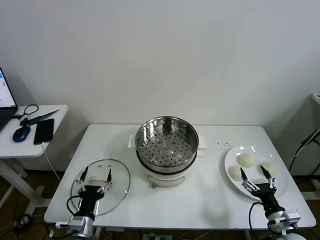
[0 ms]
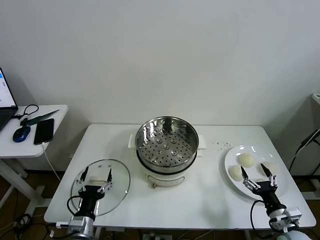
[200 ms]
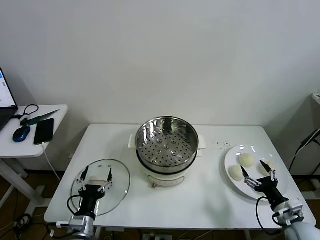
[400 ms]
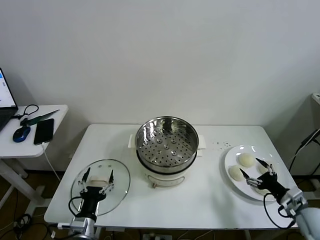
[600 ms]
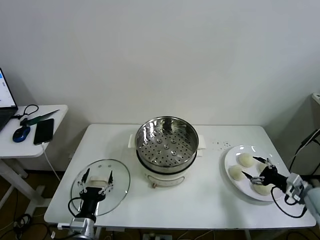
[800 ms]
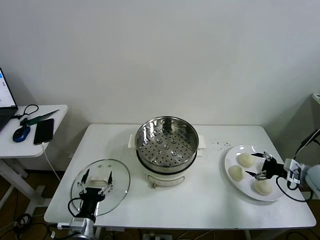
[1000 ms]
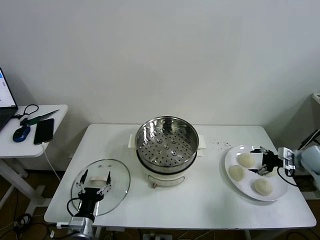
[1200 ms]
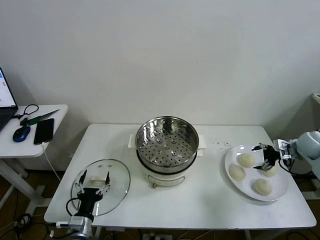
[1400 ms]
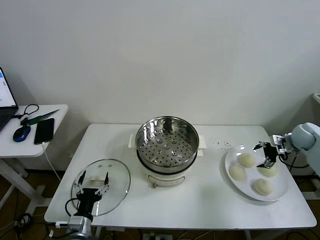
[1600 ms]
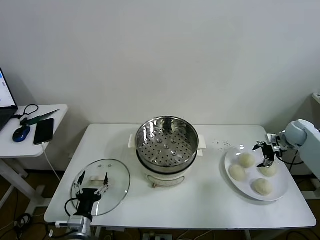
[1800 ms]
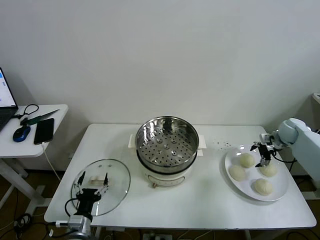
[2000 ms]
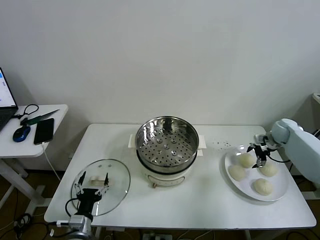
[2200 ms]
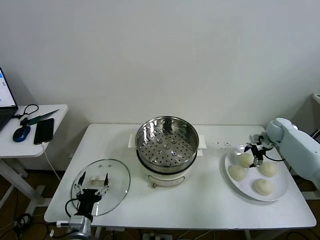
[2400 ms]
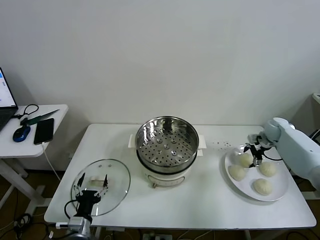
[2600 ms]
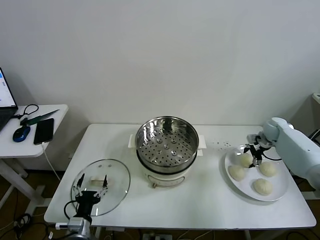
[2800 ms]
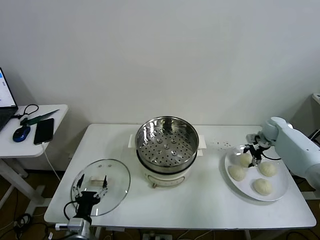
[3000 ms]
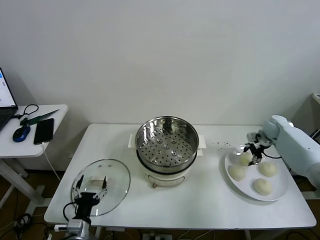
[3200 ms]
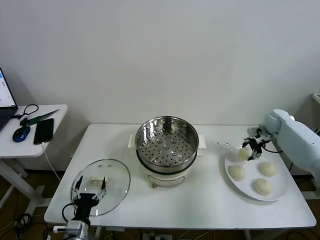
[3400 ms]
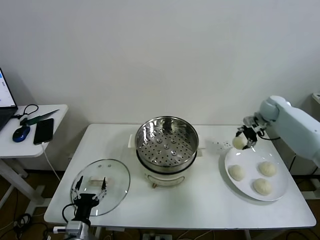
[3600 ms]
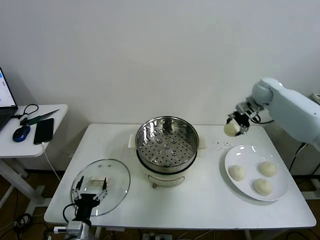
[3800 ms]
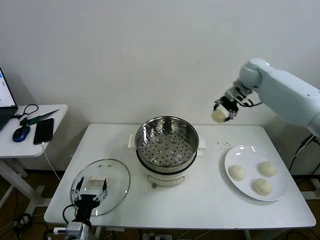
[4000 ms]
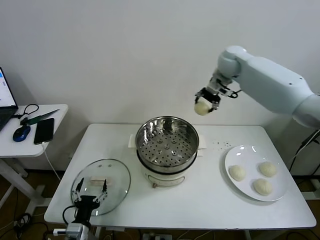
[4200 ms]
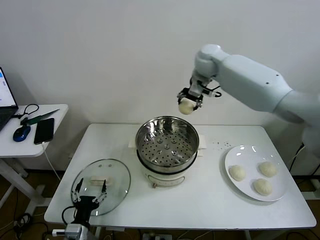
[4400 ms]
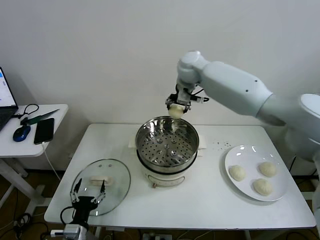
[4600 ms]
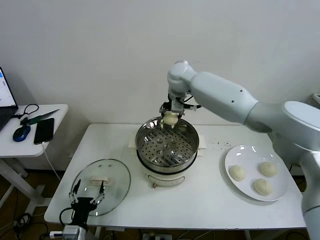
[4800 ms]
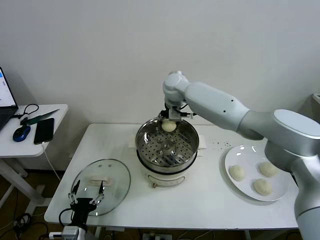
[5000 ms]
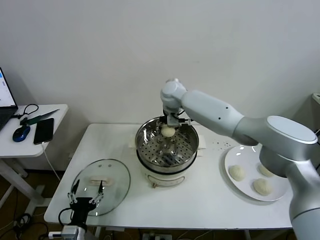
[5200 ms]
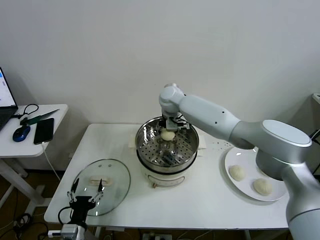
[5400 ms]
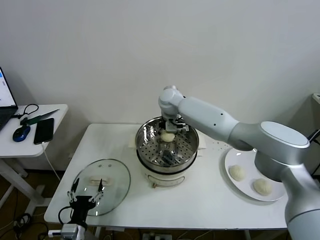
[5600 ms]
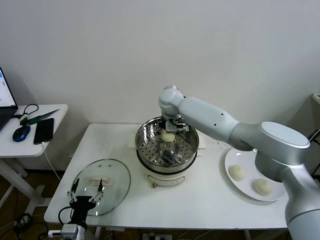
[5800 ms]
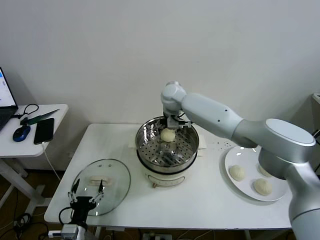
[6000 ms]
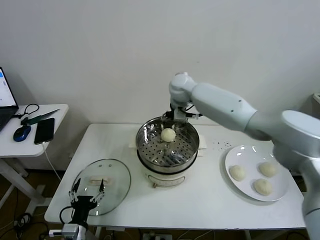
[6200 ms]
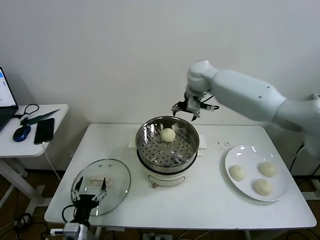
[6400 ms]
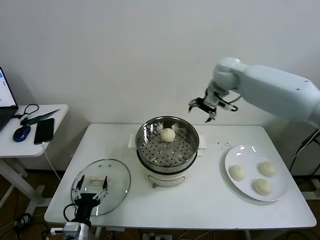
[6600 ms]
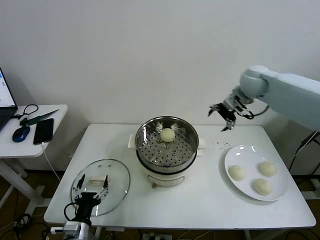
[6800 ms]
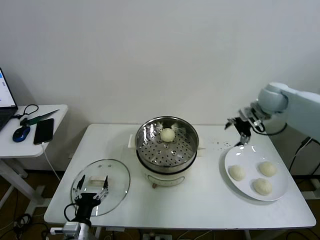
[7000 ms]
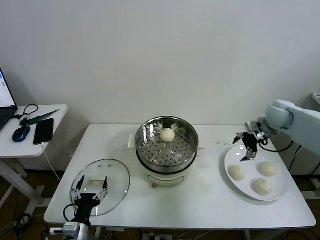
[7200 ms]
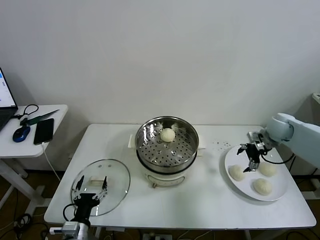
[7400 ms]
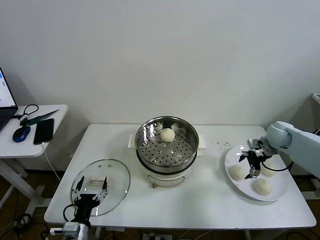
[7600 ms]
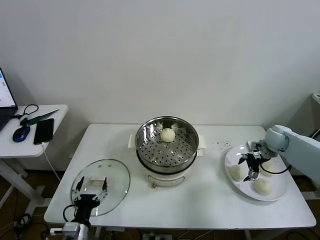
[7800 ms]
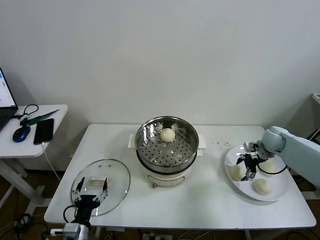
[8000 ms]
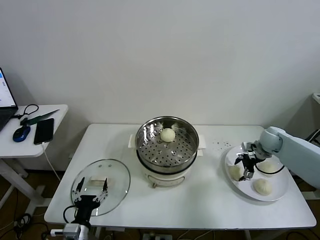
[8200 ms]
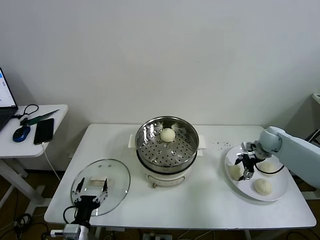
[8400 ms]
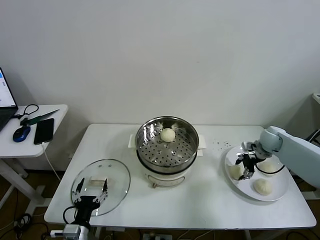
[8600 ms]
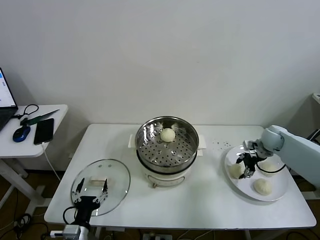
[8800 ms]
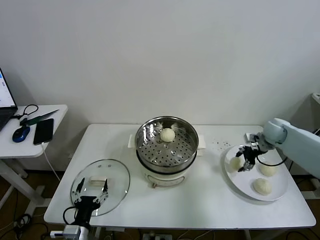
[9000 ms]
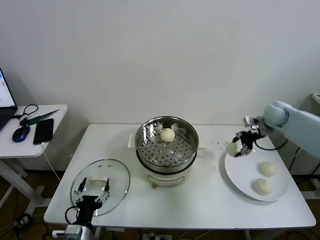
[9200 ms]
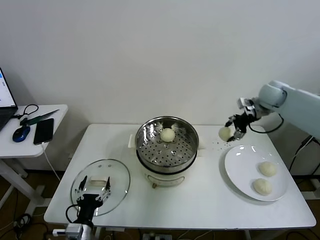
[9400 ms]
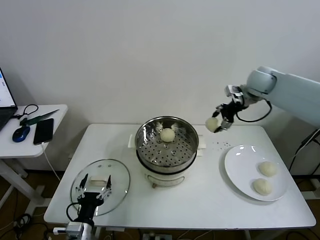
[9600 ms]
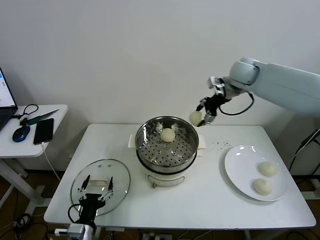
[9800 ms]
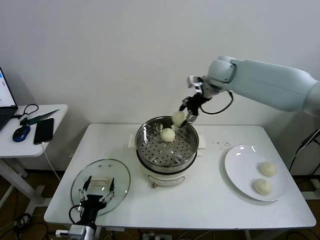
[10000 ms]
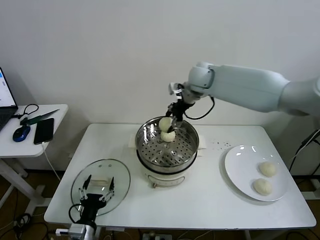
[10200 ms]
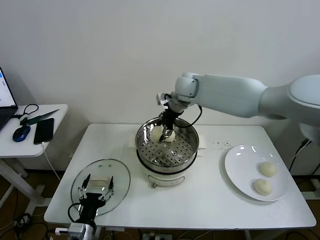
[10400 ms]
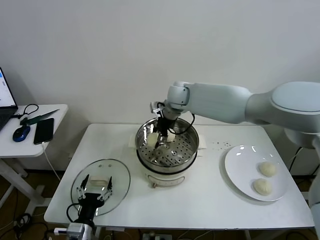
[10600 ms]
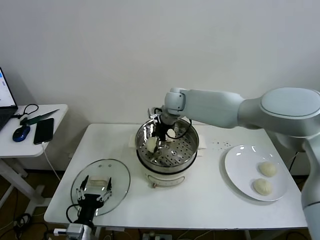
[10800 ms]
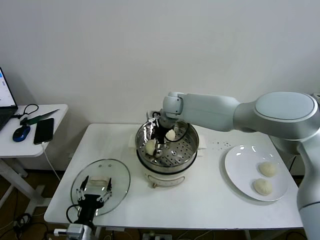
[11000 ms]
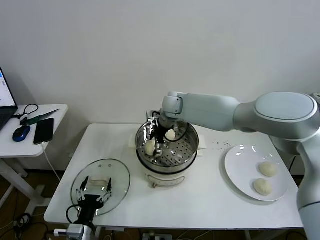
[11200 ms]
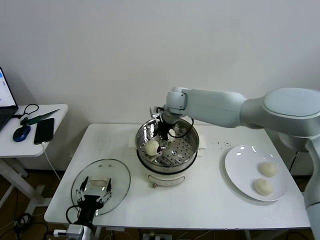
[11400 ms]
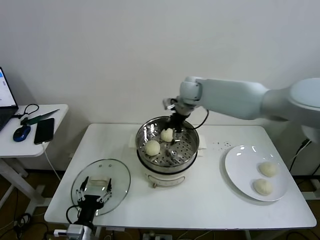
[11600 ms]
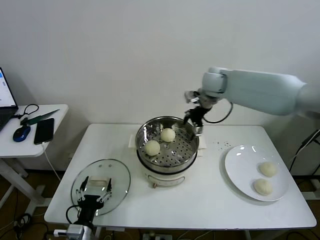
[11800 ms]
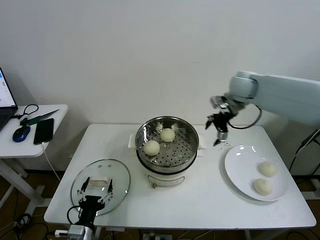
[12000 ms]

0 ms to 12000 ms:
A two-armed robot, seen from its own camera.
Task of the whole recording: take steamed baozi put them in steamer then cover it.
Step, 0 ms to 3000 ms: Grasp the baozi in the plate with right gripper.
Step, 3200 ms to 5800 ms: Place the baozi on the steamer with right gripper.
Step, 6000 ms to 8400 ms: Grasp the baozi in the plate with right gripper.
Step, 8800 ms to 11200 ms: Place the baozi on the steamer with right gripper.
1600 ms to 3000 ms: The right gripper travels forward and to the left by some 10 cm, and closes.
3000 ms to 4400 ms: The right gripper heads to the left and upward, covering approximately 40 cm.
4400 ms to 6000 ms: The right gripper goes some 10 cm downward and to the left, and opens.
6000 ms to 7600 ms: The right gripper heads to the right, covering about 40 cm.
7600 ms to 9000 ms: The right gripper closes its fingers.
9000 ms to 10400 ms: The right gripper moves to the left, approximately 35 cm.
10400 ms to 12000 ms: The right gripper travels to the right by approximately 20 cm, and opens up.

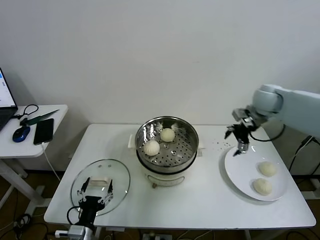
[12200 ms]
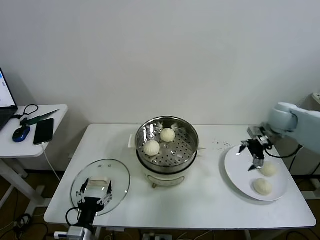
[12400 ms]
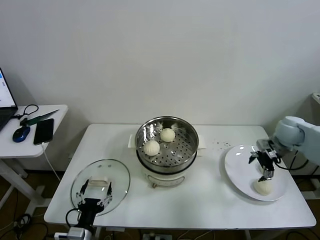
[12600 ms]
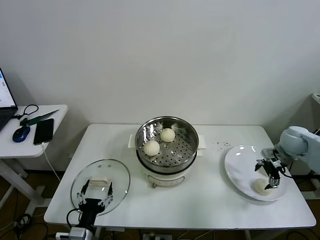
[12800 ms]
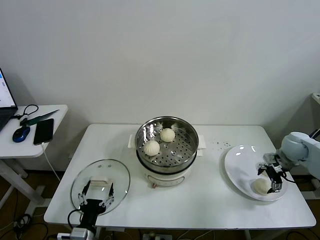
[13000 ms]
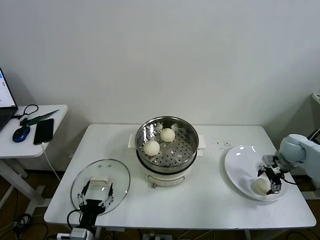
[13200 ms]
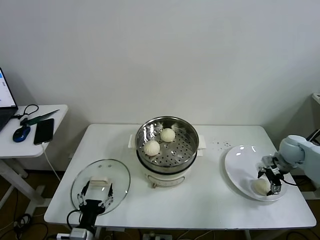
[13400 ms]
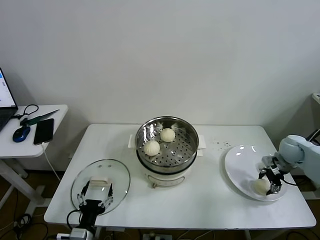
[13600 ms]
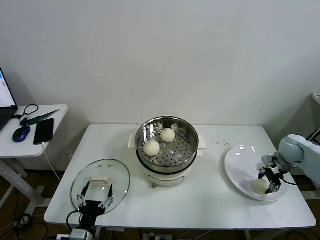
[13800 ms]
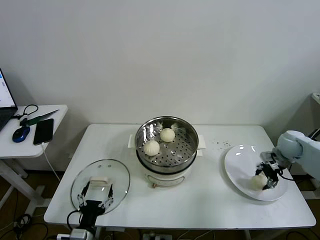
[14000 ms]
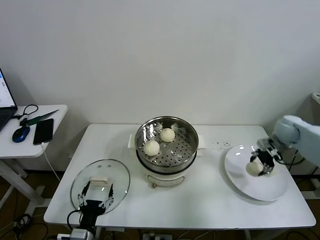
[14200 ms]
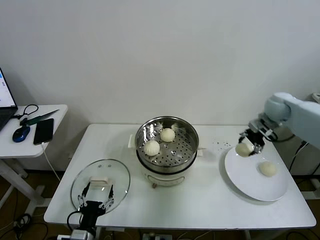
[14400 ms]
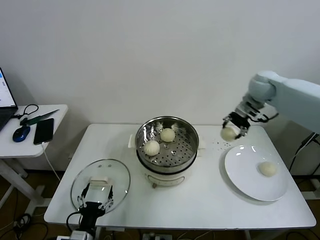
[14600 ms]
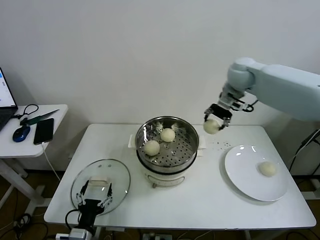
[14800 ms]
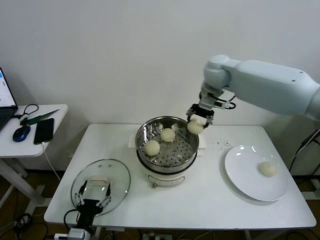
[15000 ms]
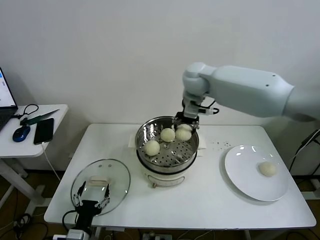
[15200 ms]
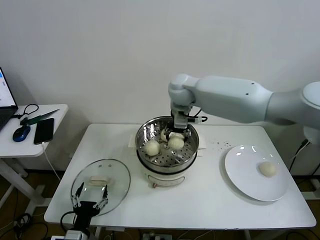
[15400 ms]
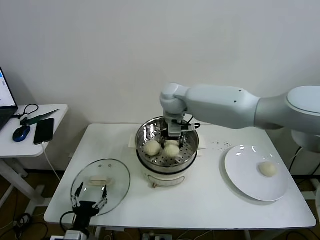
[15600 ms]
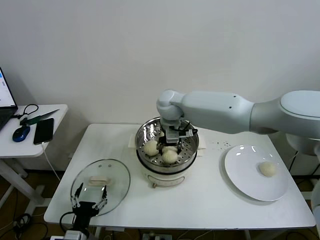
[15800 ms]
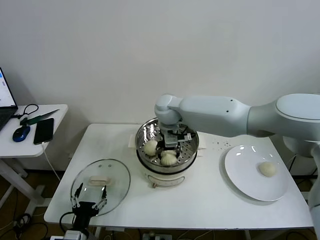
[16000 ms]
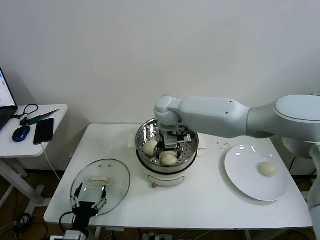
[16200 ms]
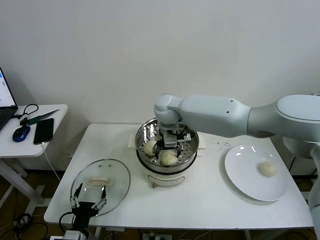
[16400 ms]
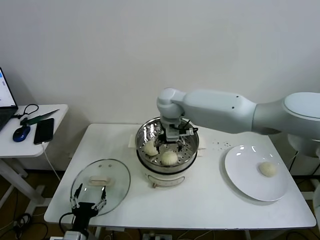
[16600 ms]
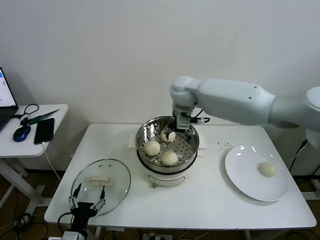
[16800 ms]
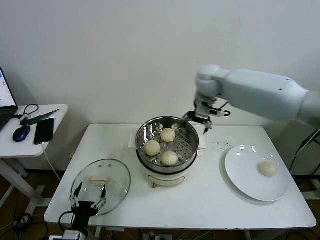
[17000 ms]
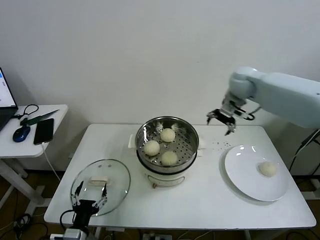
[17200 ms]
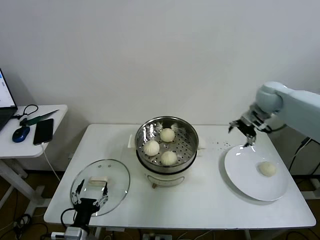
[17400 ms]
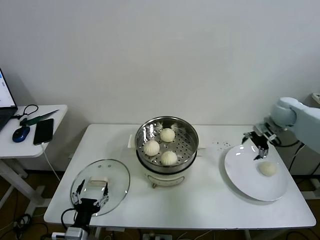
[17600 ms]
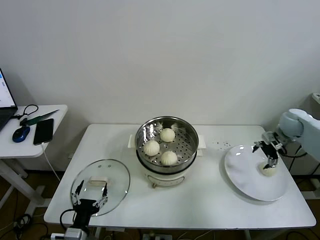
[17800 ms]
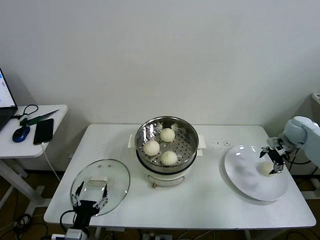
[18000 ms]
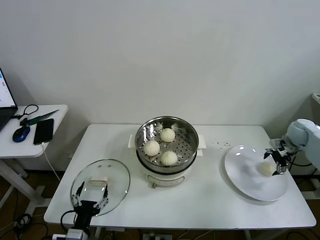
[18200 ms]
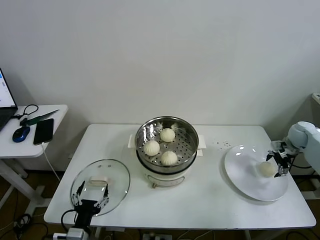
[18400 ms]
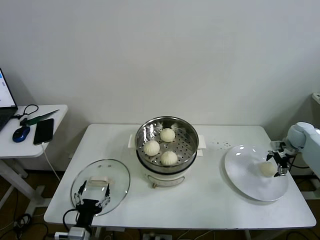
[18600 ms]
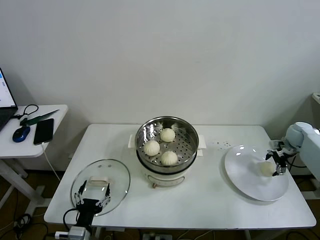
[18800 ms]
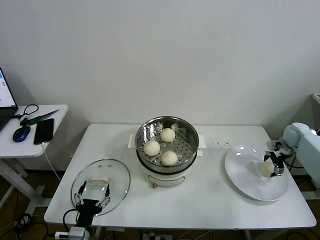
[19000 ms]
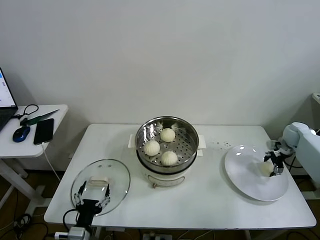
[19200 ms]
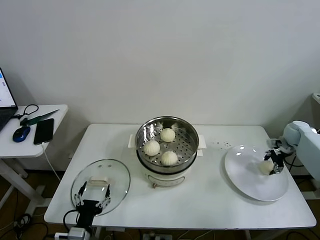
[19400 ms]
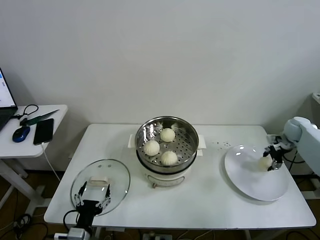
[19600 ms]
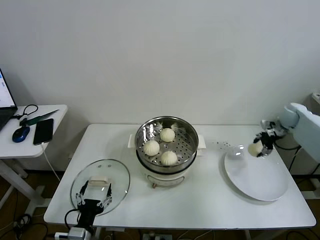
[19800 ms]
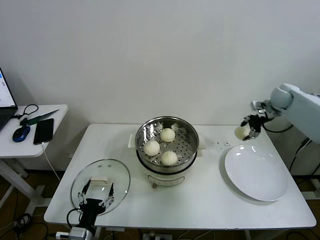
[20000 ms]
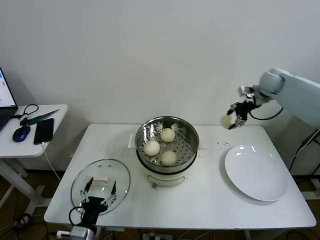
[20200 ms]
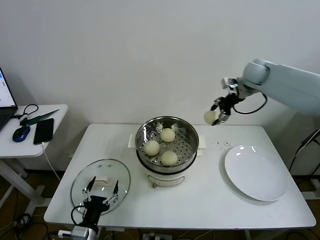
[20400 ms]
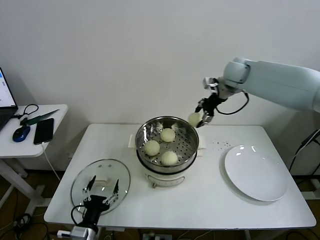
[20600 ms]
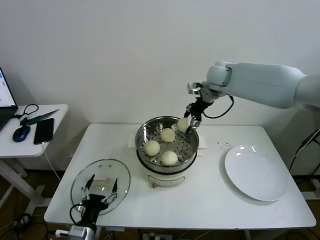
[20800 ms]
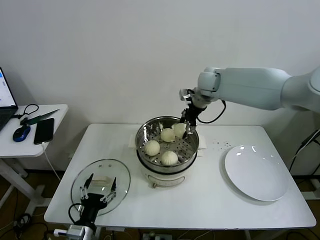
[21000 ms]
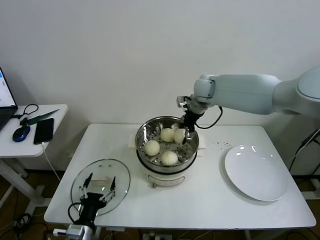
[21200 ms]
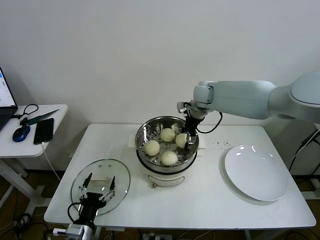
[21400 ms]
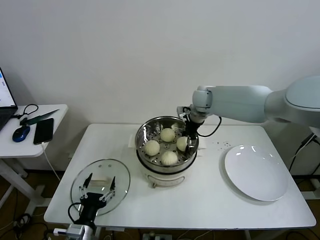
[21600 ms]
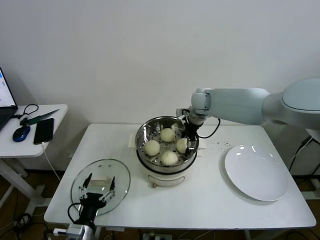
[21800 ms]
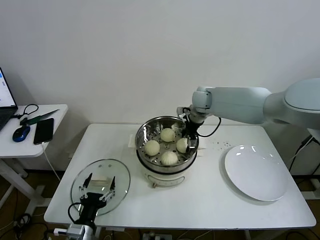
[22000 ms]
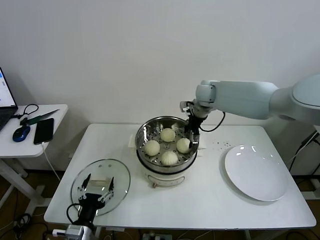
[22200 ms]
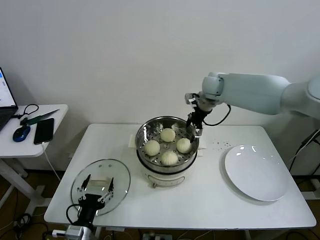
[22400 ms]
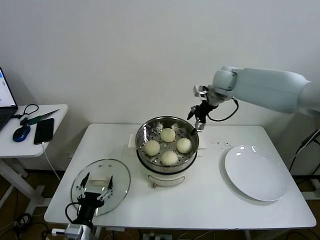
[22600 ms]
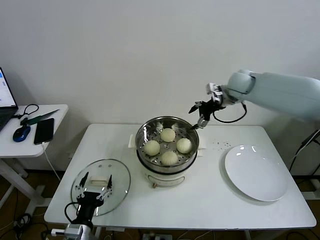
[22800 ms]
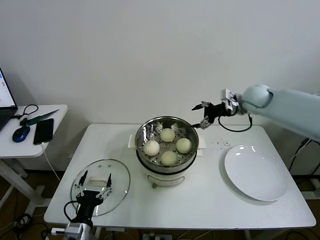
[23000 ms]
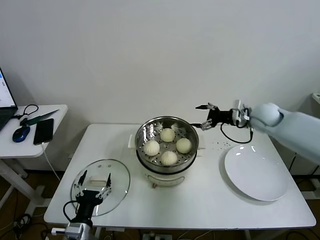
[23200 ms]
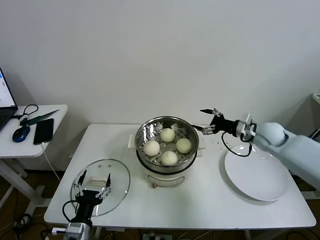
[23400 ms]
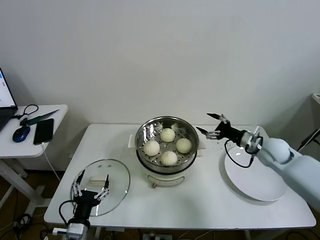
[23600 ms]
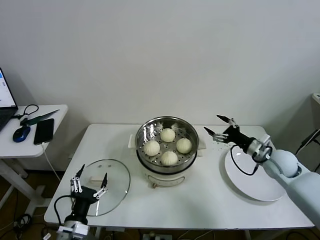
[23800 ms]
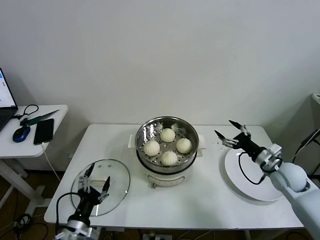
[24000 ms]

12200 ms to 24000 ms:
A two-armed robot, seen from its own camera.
Task of the whole recording: take steamed baozi put them in steamer then cover it.
Step, 12200 ms to 13600 ms: Grasp the baozi in the plate with right gripper.
Step, 13800 ms to 16200 ms: Place the baozi on the steamer with right gripper.
Step, 16600 ms to 19200 ms: Grasp the baozi in the plate with right gripper.
Step, 19400 ms to 22000 ms: Place the baozi on the steamer with right gripper.
12200 ms to 13600 ms: The right gripper goes some 20 cm downward and to the right, and closes its fingers.
13600 ms to 15200 ms: The right gripper goes about 40 cm to the left and upward.
15200 ms to 16600 ms: The right gripper heads to the left and downward, covering some 10 cm, and opens up.
16600 ms to 18200 ms: The right gripper shifts roughly 50 cm to the right.
18200 ms to 19600 ms: The right gripper closes its fingers.
19600 ms to 21000 ms: The right gripper goes some 40 cm to the left and upward.
21000 ms to 22600 ms: The right gripper is displaced to the right by approximately 5 cm, and opens its fingers.
22600 ms to 24000 ms: The right gripper moves backward, downward and to the right, about 40 cm.
